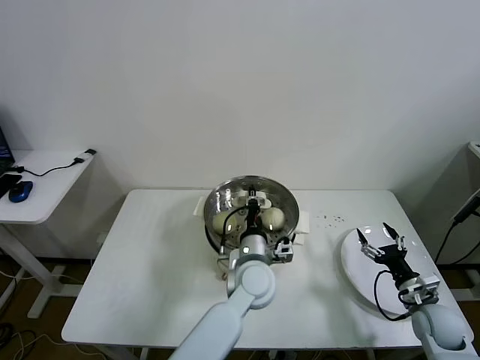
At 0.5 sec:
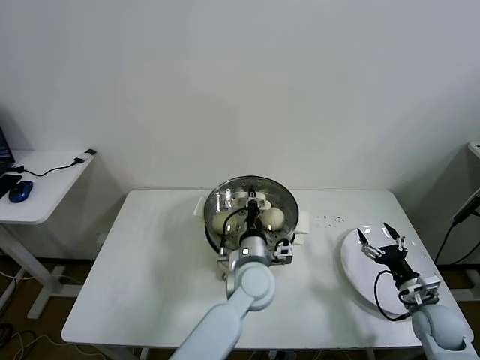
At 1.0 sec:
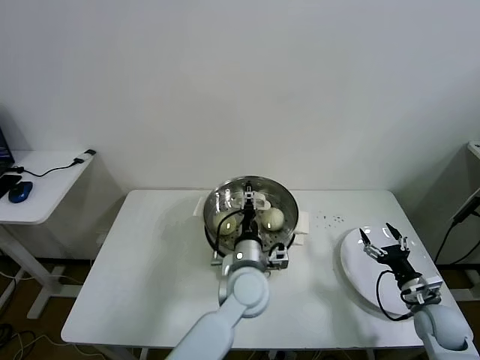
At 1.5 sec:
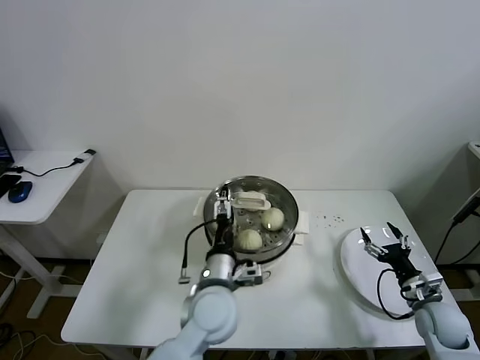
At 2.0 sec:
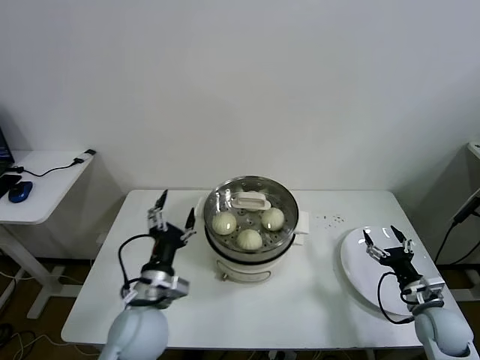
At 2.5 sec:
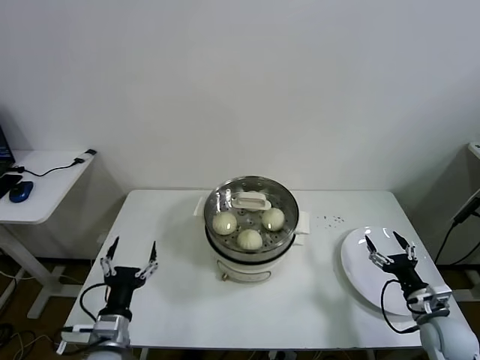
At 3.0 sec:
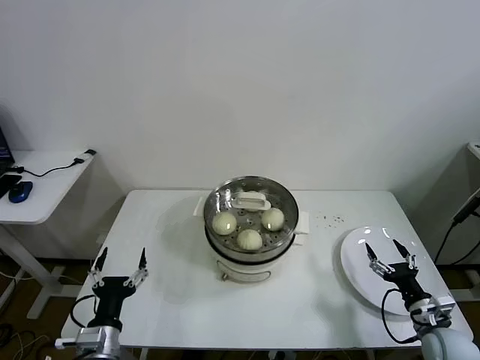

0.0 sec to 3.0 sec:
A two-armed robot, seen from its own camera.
Task of the whole recording: take steamed baozi put them in steamer.
0.0 sec to 1.5 sec: The left gripper goes about 10 cm to the left and backward, and opens.
1.5 sec to 3.0 sec: The right gripper is displaced backward by approximately 5 cm; the left gripper goes roughly 25 cm to the left and backward.

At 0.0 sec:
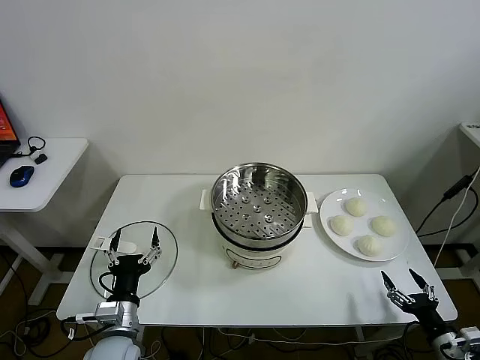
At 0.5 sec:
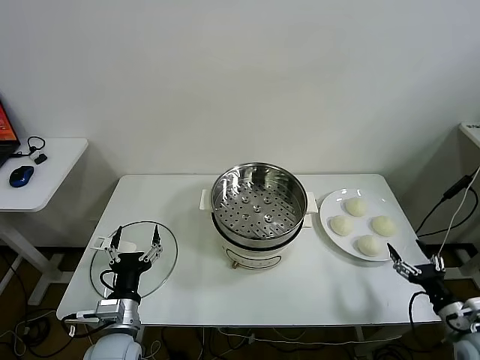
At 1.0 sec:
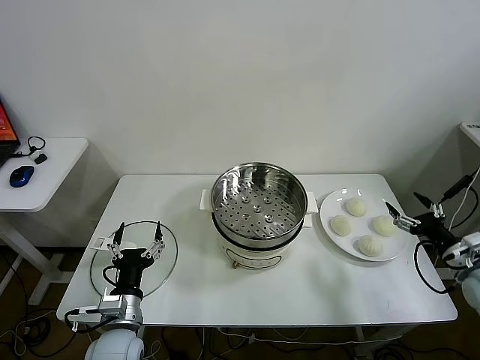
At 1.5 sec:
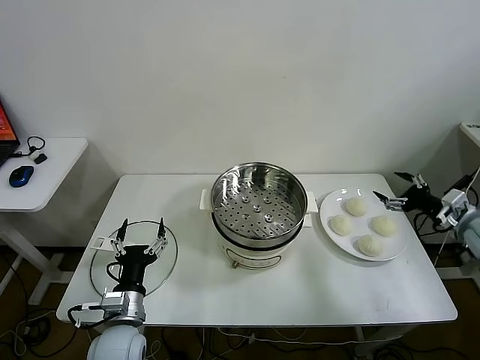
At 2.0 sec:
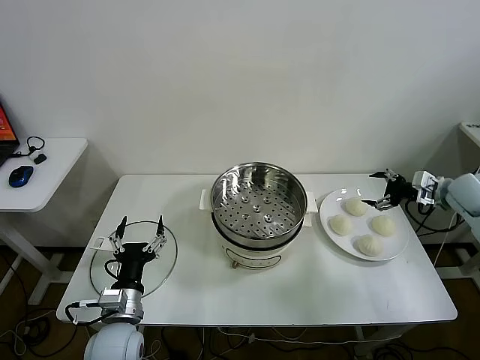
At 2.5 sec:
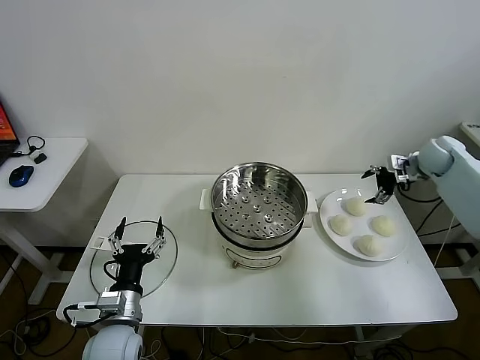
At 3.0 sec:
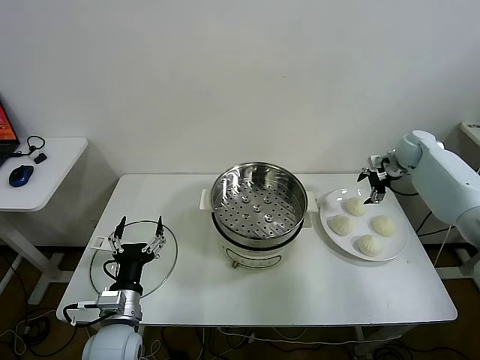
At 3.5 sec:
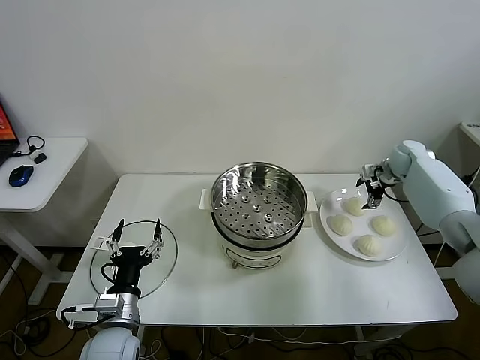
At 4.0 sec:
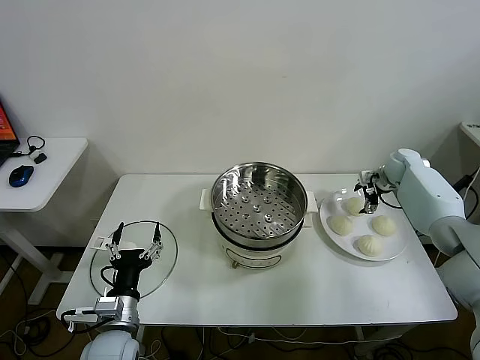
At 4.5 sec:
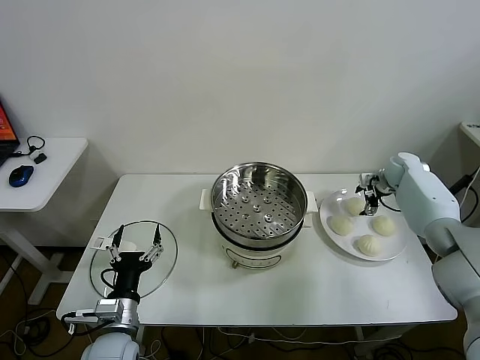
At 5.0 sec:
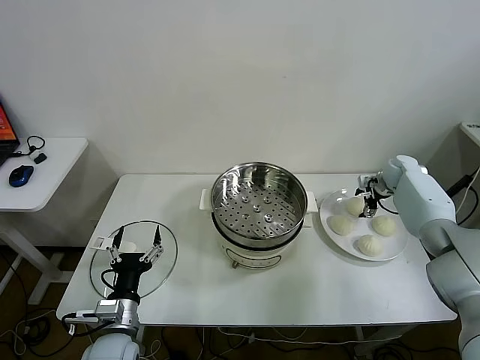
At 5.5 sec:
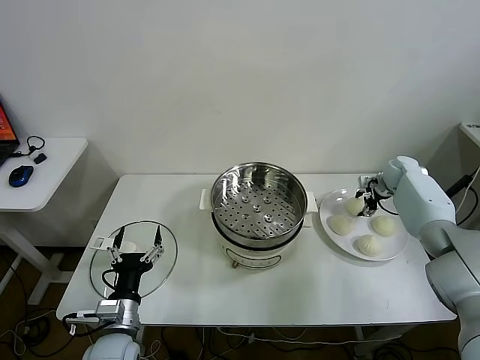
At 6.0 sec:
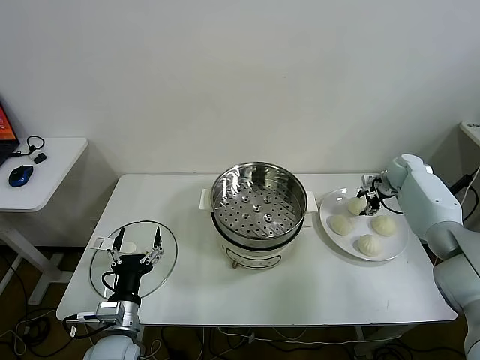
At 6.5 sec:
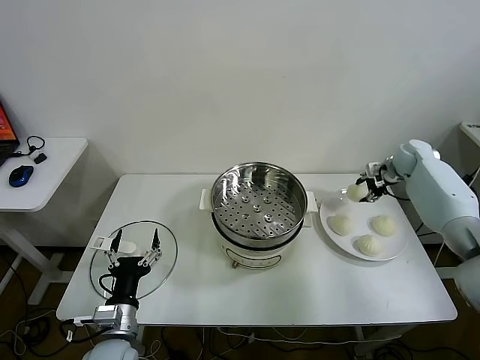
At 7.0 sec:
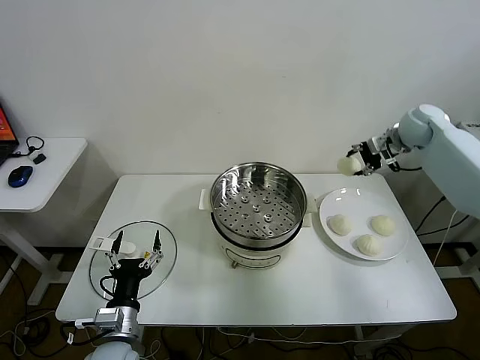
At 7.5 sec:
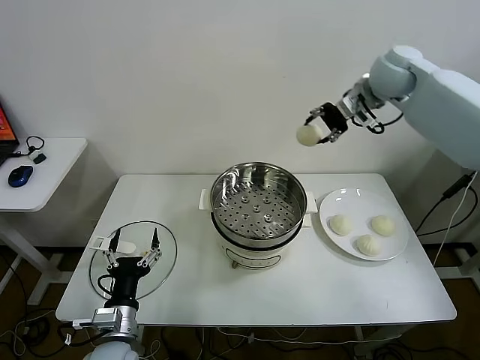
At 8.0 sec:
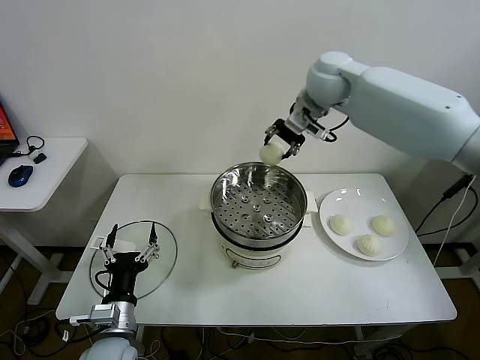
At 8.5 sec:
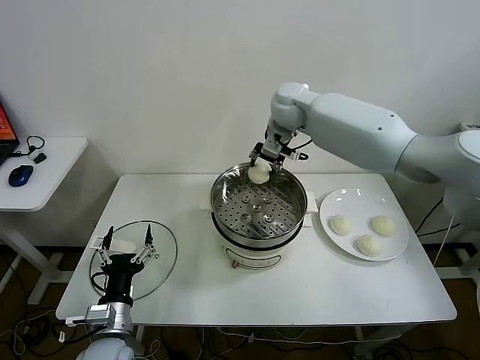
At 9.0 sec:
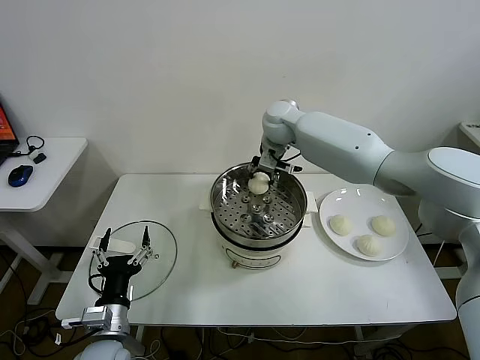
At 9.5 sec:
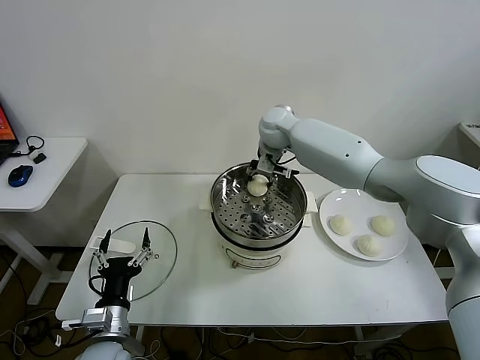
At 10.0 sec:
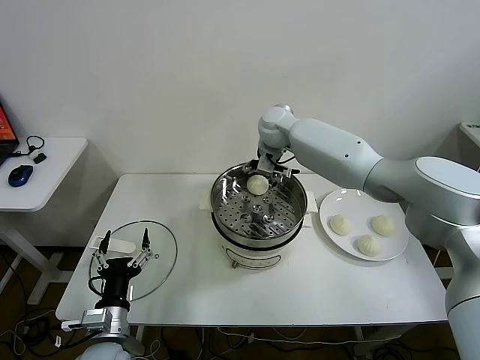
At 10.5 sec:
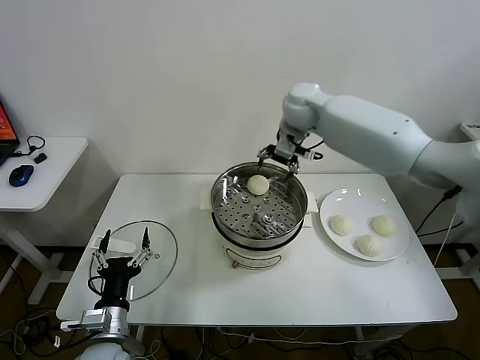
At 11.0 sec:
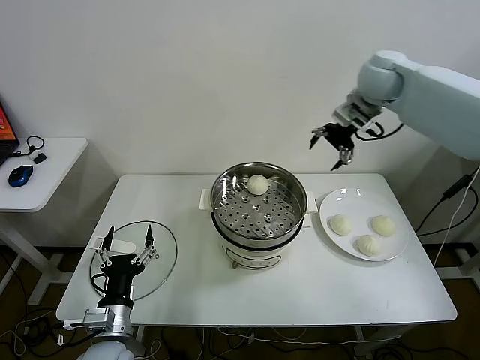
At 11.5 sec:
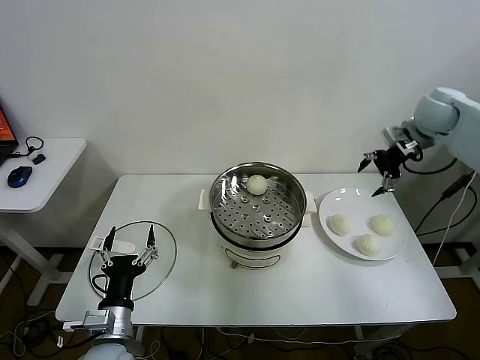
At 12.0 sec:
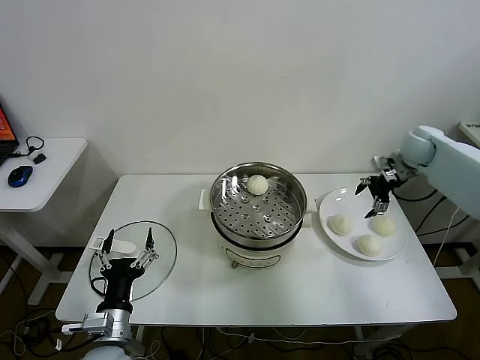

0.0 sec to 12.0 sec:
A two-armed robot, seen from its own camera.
Task of the whole recording: take steamed baozi put them in steamer.
Step, 0.0 sec to 5.5 sec: Grasp the baozi in the plate with right gripper.
Step, 6.0 sec to 10.0 sec: Place the baozi on the steamer with right gripper.
2.0 sec to 4.0 sec: The right gripper moves forward, downward and to the left, some 15 cm.
4.0 sec to 6.0 sec: The right gripper closes up.
6.0 sec to 8.0 sec: The right gripper heads to the left and upward, covering some 40 cm.
8.0 sec to 10.0 sec: The right gripper travels downward and to the left by about 15 cm, and opens up.
10.0 sec to 12.0 sec: The right gripper travels to the right by roughly 35 cm.

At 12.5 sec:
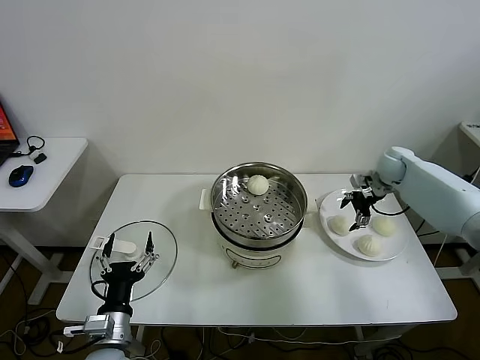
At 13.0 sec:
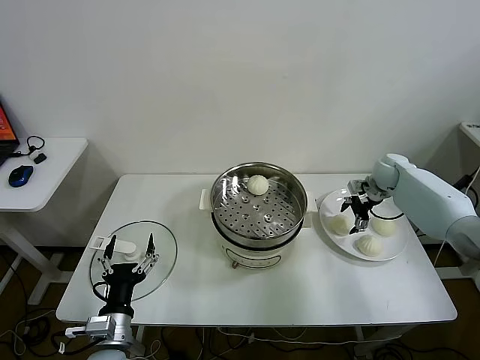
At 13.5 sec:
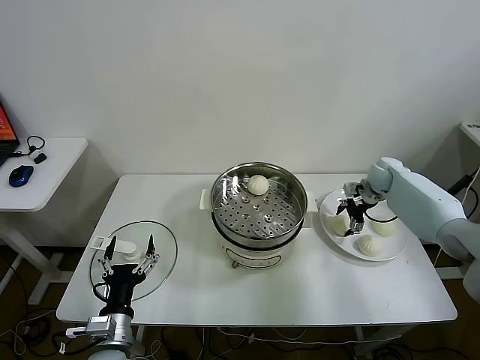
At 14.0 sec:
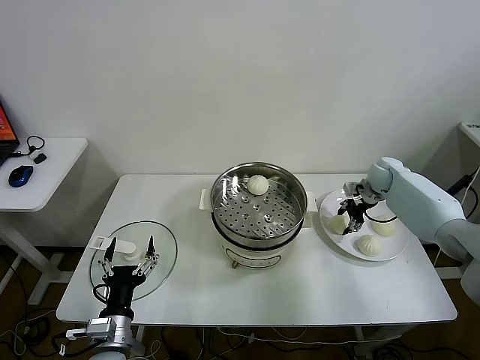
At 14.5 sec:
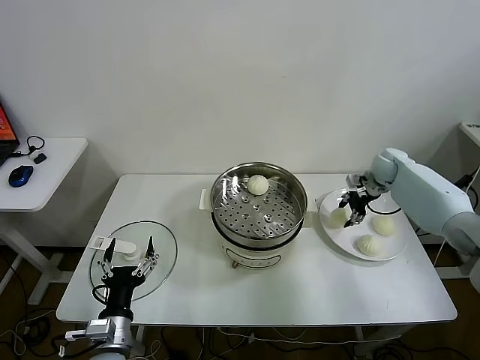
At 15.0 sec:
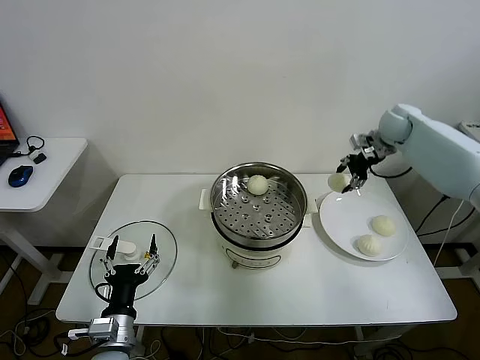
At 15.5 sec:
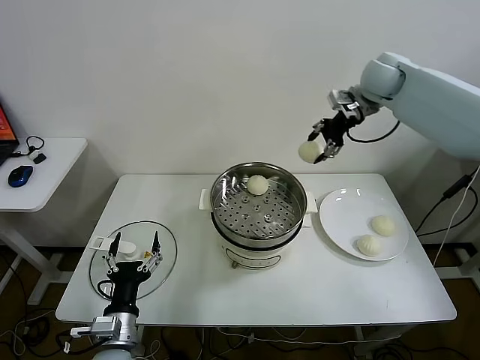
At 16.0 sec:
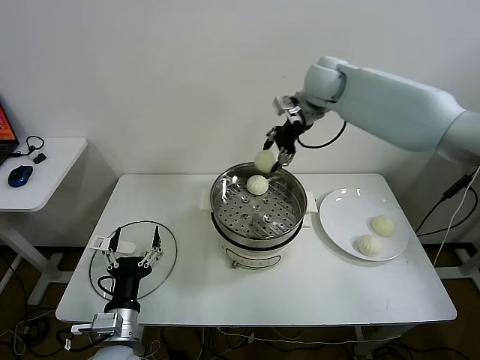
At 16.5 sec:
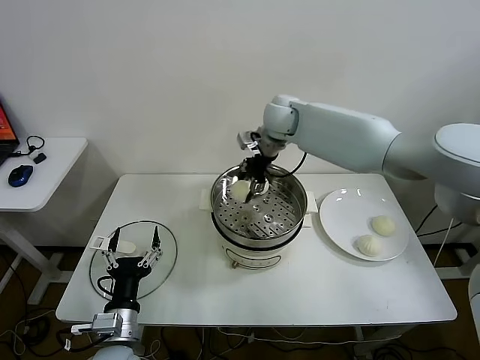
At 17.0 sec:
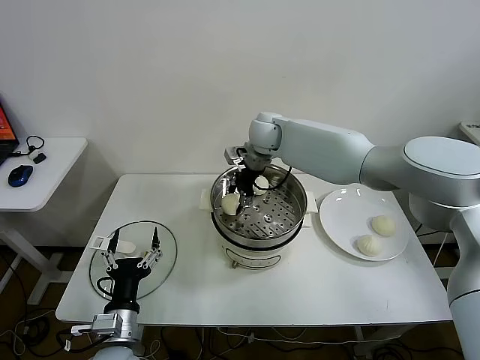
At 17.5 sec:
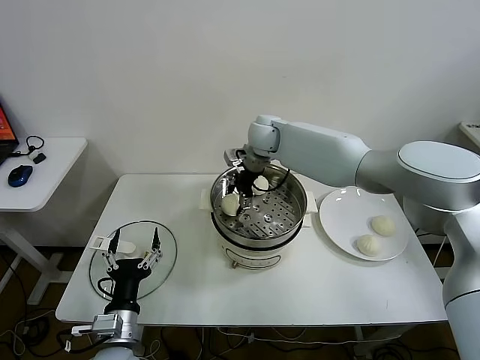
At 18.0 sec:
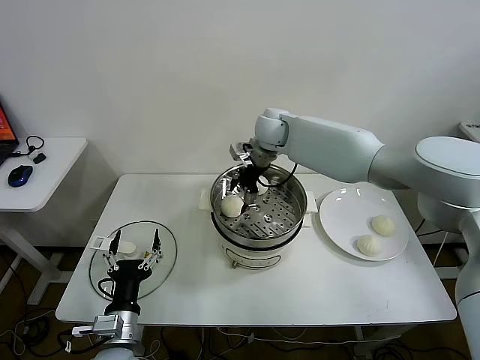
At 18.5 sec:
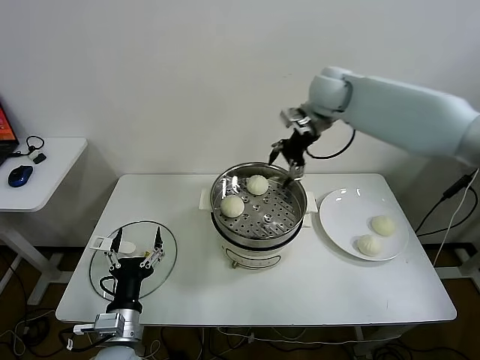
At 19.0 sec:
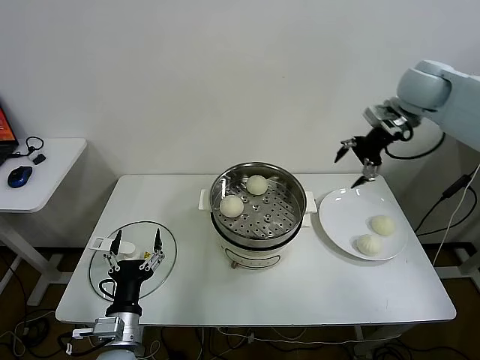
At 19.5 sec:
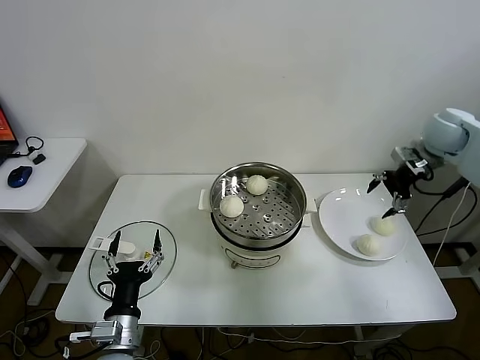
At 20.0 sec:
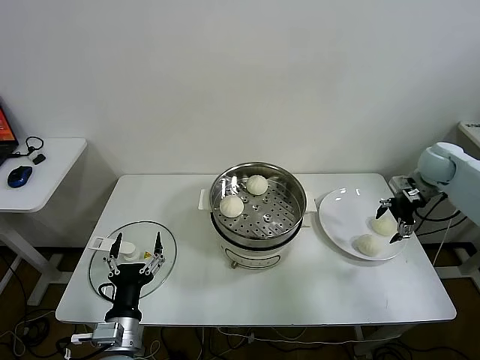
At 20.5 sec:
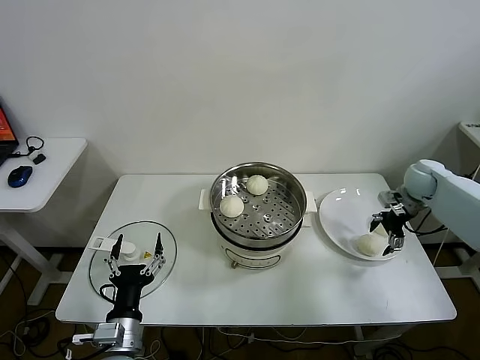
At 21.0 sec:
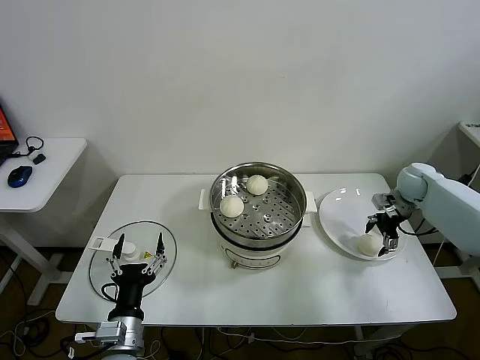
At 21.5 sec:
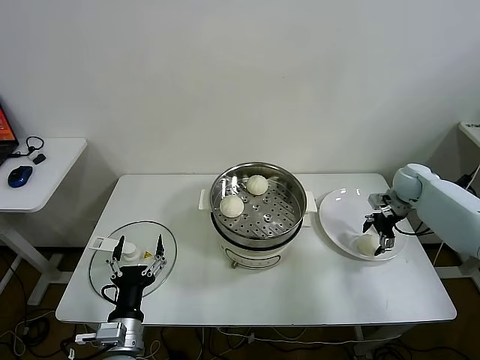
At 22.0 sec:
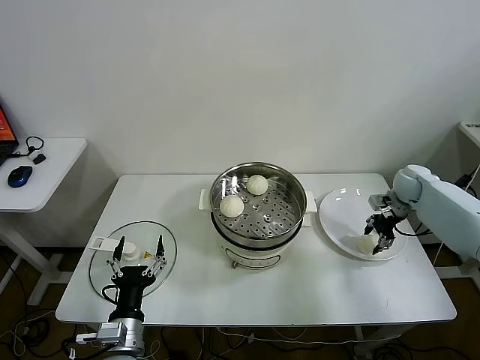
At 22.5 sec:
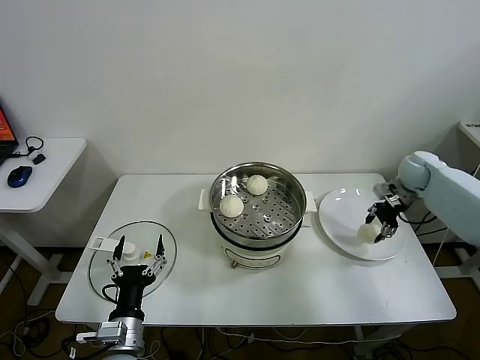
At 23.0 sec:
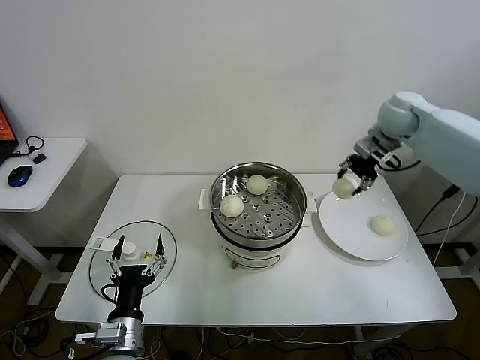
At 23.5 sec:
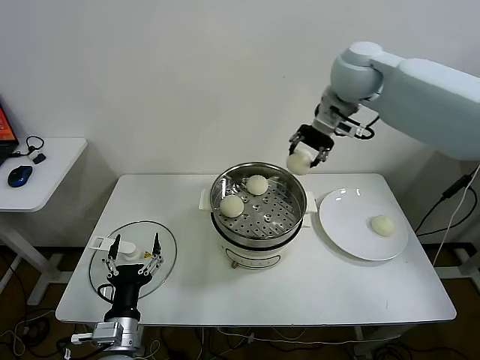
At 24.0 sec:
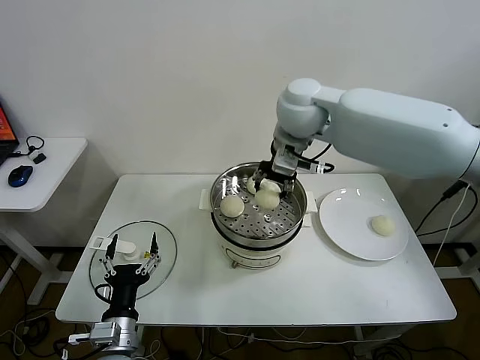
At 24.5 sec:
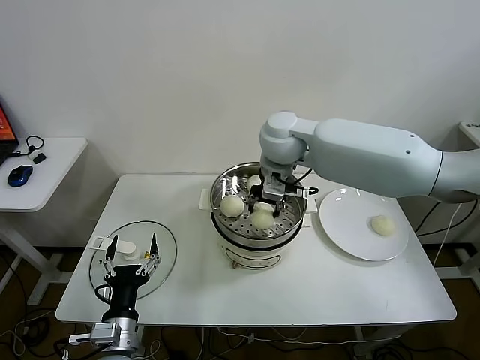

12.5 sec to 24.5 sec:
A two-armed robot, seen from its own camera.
Task of the whole recording: take steamed baozi put them in steamer.
Step, 14.5 sec to 18.0 sec: Place the baozi on the steamer with right gripper.
Step, 18.5 sec to 22.0 sec: Grasp the baozi in the plate with right gripper.
12.5 sec to 14.5 sec: The right gripper closes its fingers.
14.5 sec to 16.5 sec: The right gripper travels to the left and upward by about 35 cm.
16.5 sec to 18.5 sec: The right gripper shifts about 15 cm to the right and upward, and opens.
18.5 sec to 20.5 sec: The right gripper shifts roughly 35 cm to the right and downward.
20.5 sec to 22.5 sec: The right gripper closes its fingers.
22.5 sec to 24.5 sec: The right gripper goes some 35 cm to the left.
